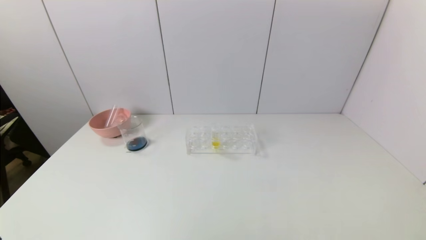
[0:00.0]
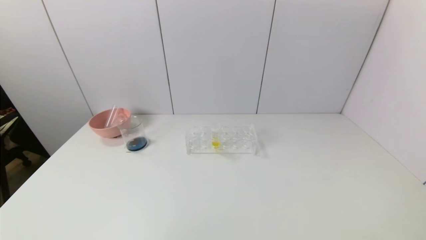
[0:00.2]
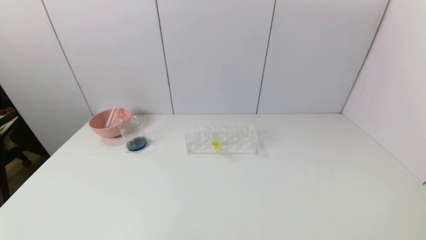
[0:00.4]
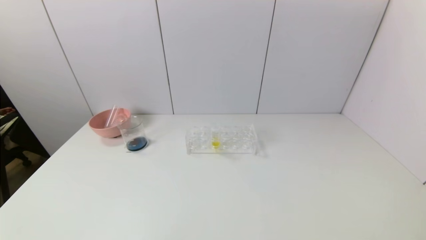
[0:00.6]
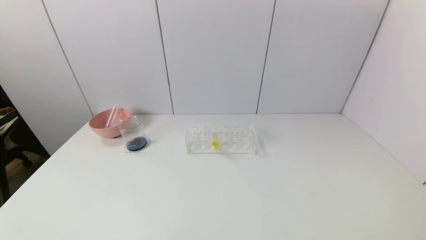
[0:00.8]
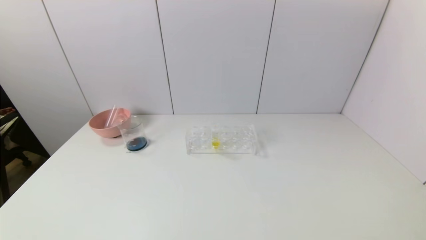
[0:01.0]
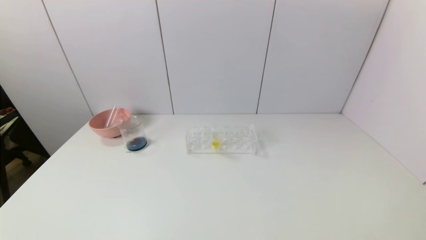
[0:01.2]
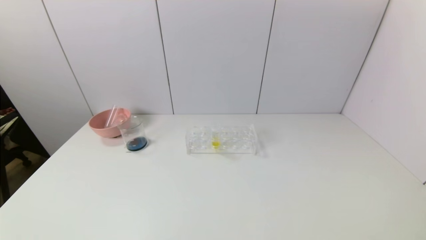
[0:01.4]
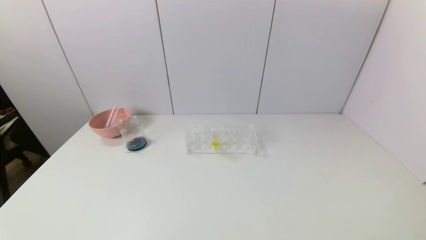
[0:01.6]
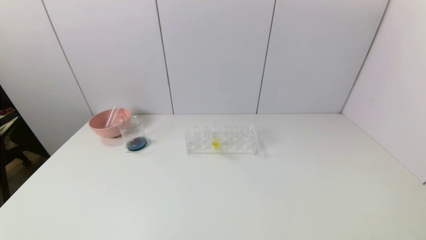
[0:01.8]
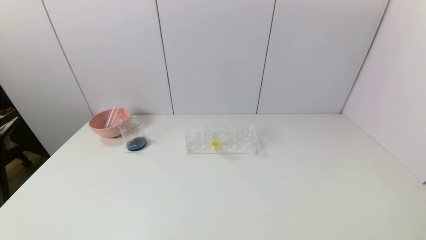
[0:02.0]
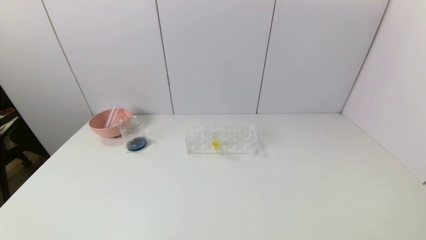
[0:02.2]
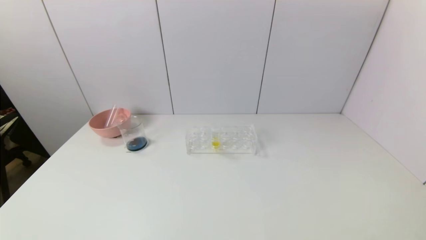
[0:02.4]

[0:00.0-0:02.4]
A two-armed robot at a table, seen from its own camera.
Task of the whole recording: pick up the test tube with red pigment and the test tube with blue pigment by grippers and pour them into the container.
0:01.2 to 0:02.4: Both grippers stay about where they are.
